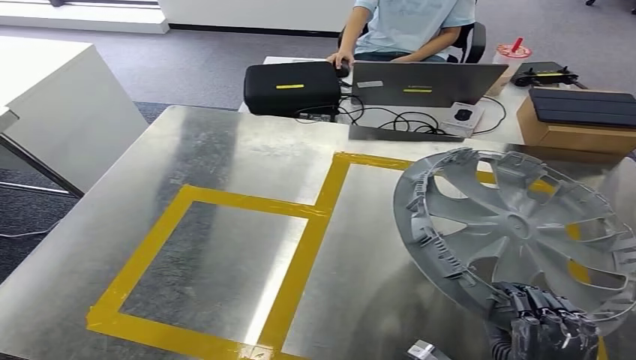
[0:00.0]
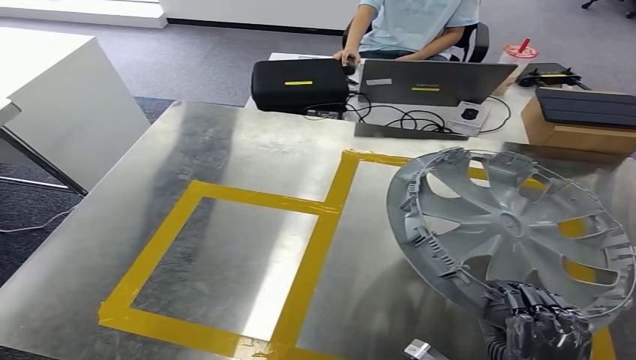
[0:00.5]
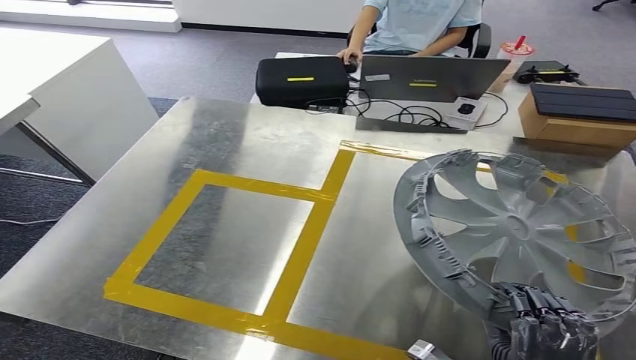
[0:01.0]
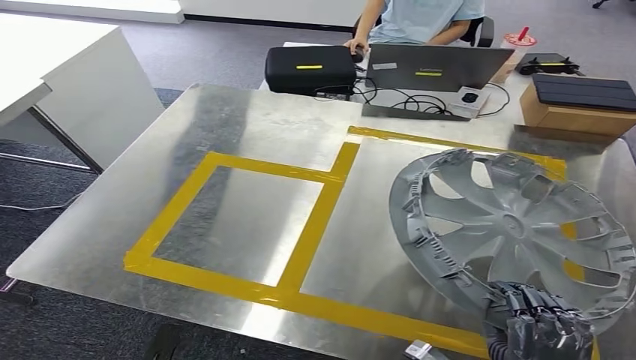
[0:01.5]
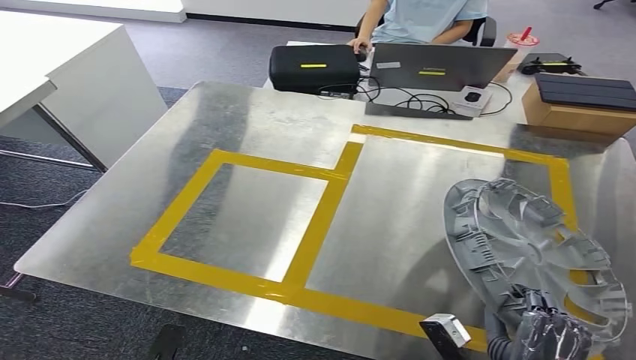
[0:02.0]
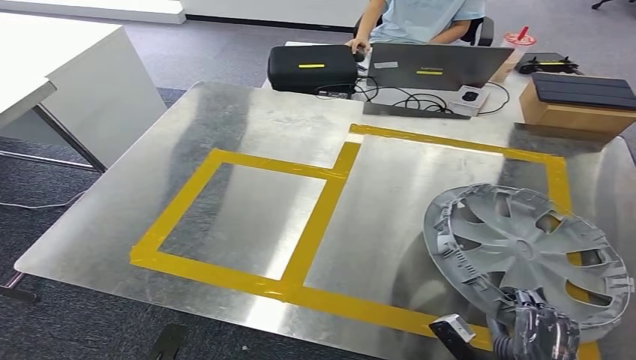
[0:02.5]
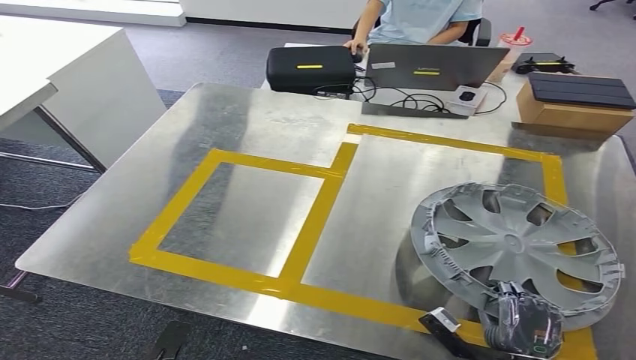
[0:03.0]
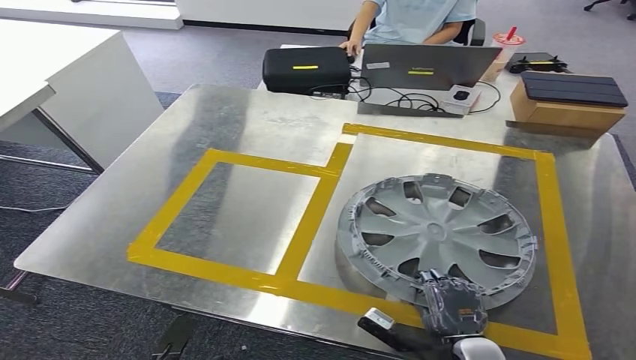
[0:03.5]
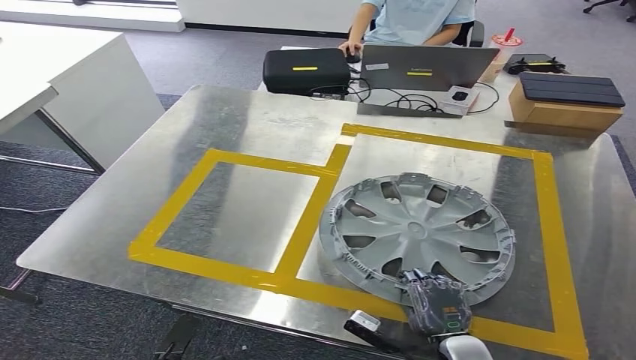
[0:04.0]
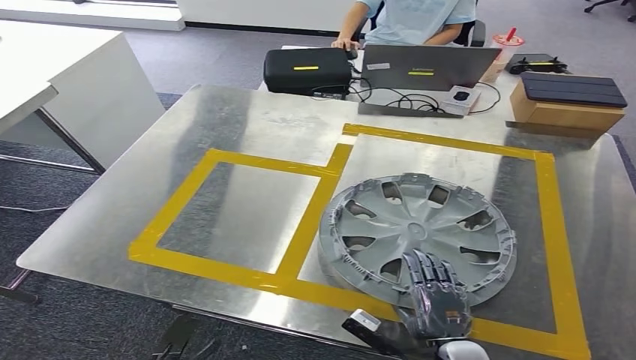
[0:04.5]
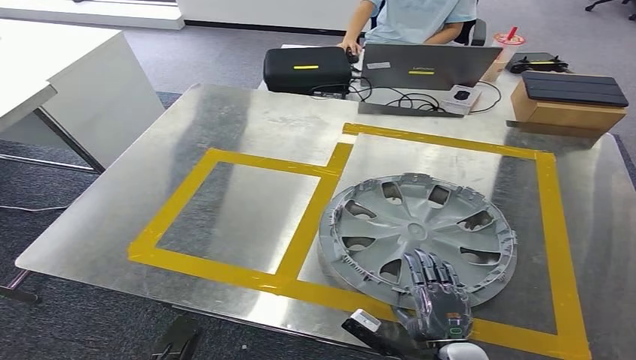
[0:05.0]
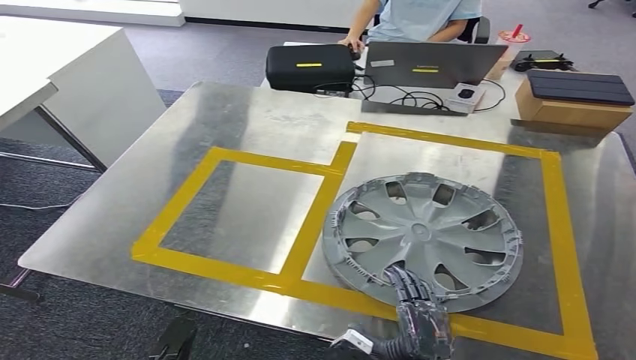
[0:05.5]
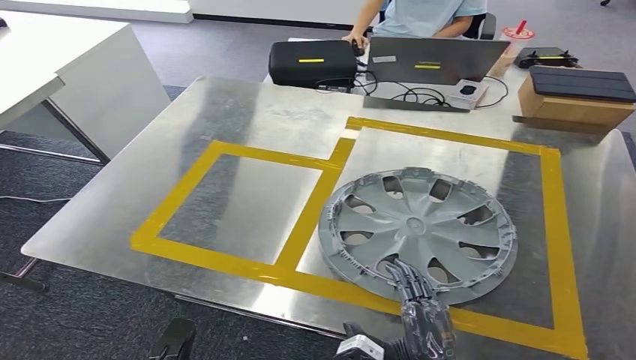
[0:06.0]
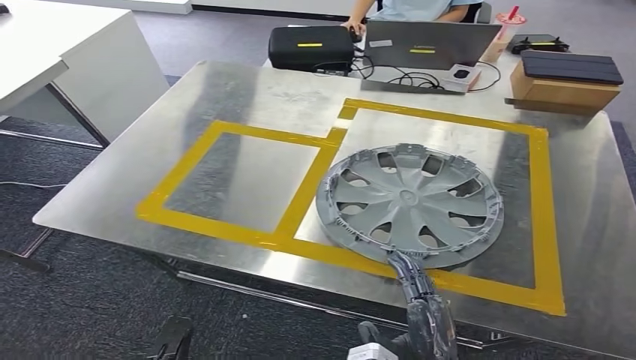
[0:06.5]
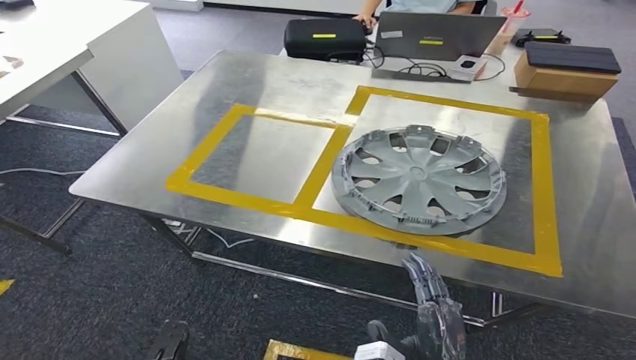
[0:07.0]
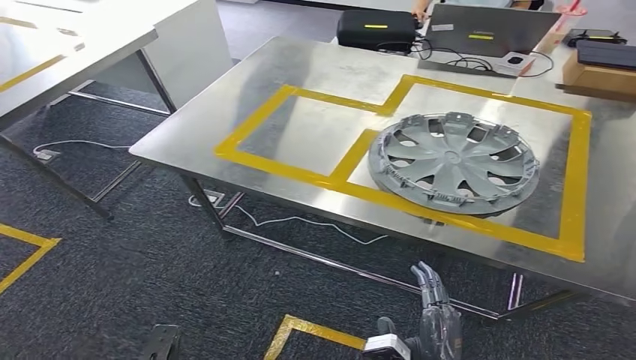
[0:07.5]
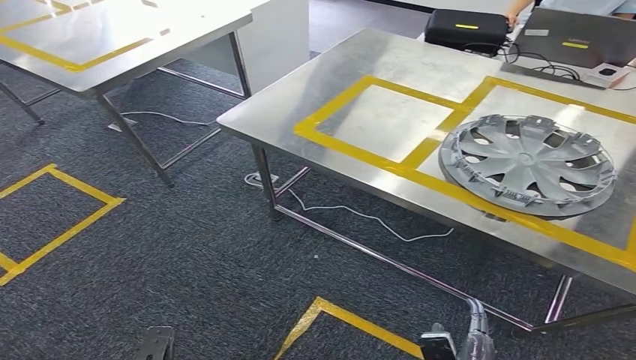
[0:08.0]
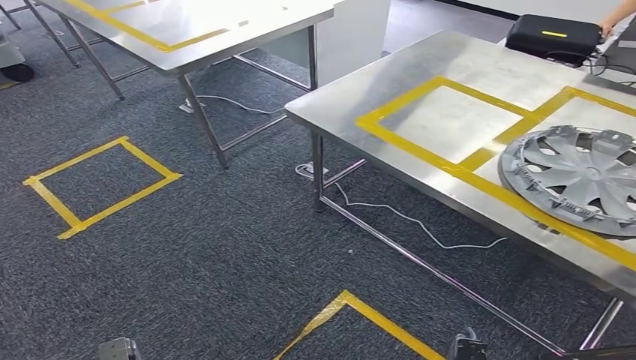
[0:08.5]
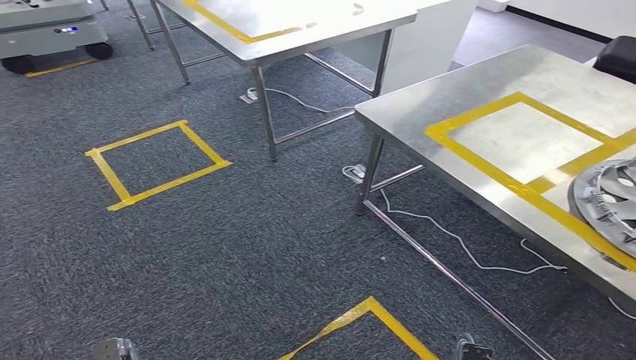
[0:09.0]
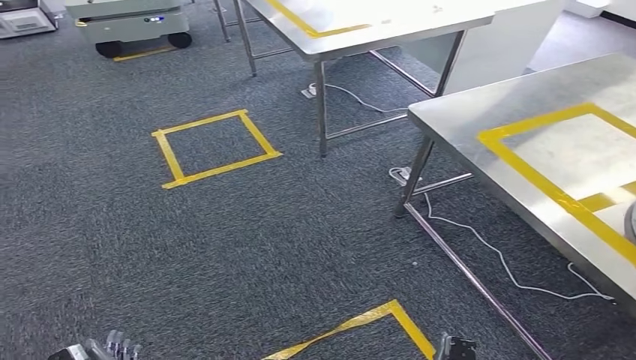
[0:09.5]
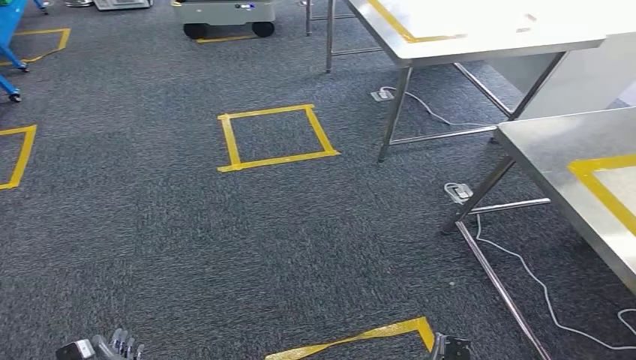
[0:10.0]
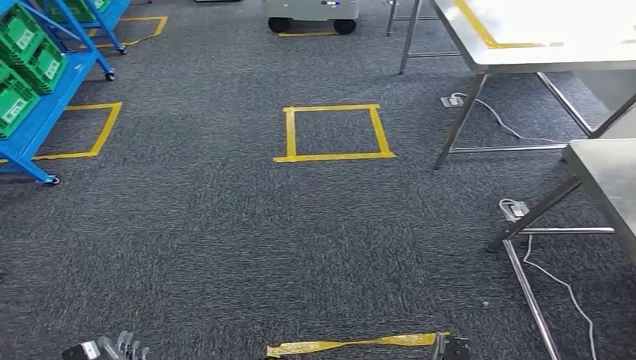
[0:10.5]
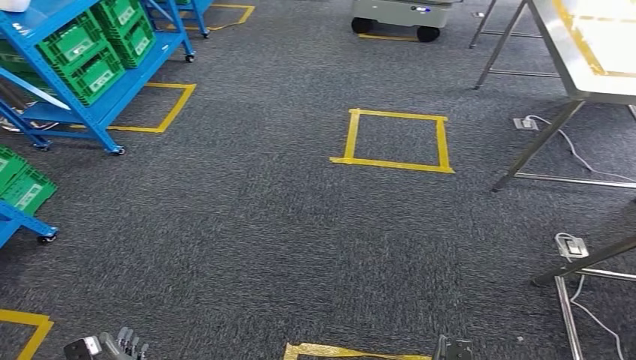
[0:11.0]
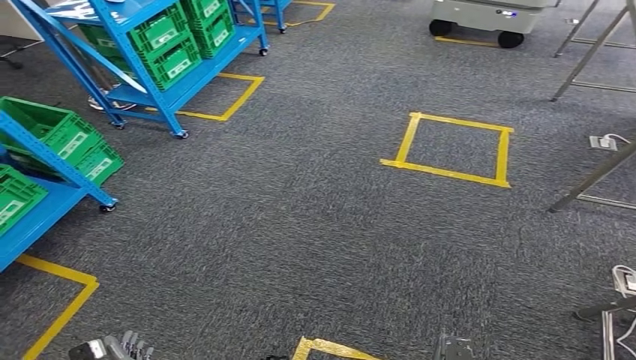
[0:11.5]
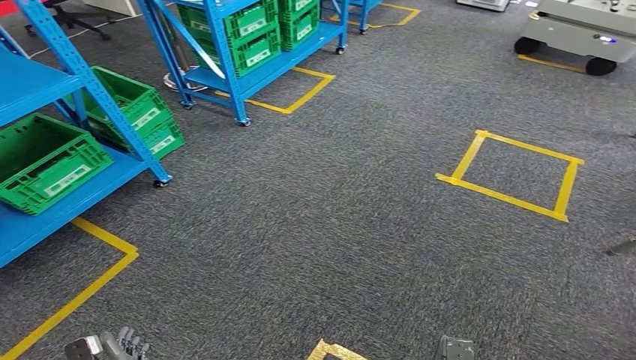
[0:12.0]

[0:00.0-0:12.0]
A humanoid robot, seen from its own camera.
Step, 0:00.0 to 0:04.5: Insert the small component into the corresponding slot on the workbench.

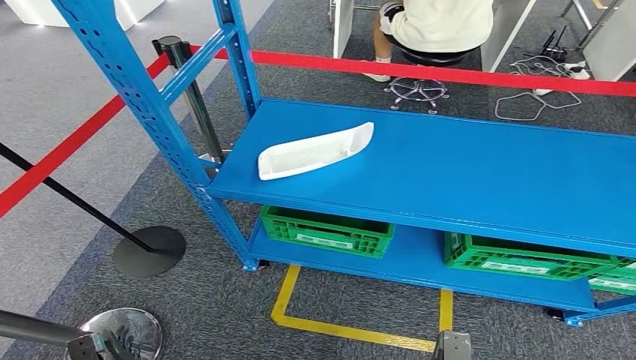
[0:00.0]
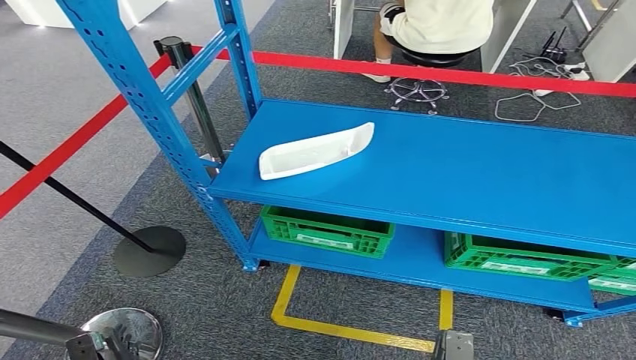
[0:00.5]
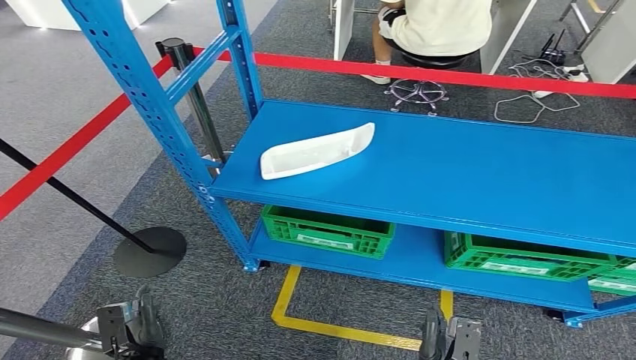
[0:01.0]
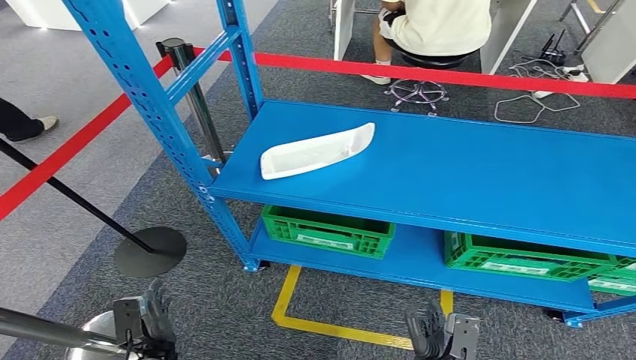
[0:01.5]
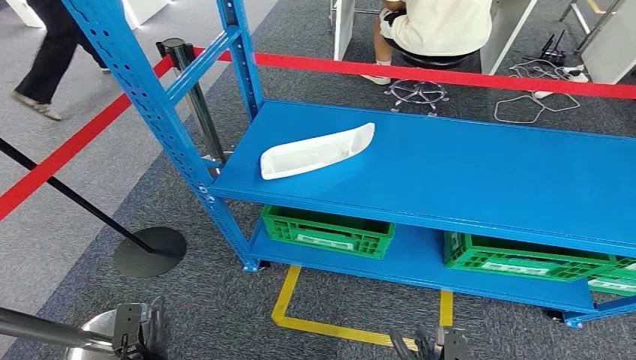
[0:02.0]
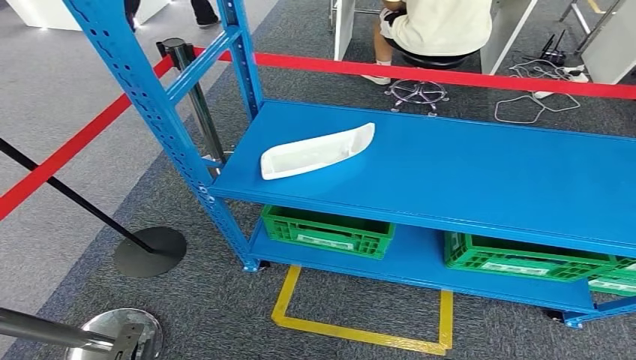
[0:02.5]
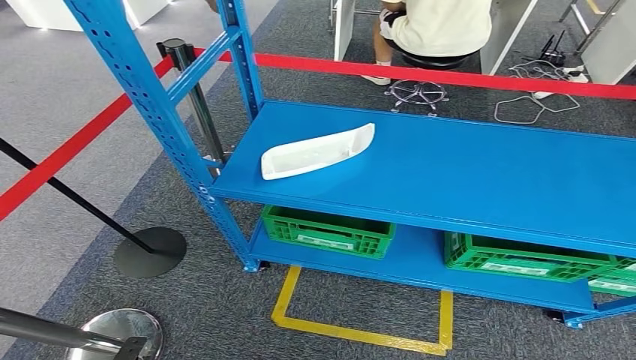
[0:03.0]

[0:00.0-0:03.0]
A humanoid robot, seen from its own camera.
Step, 0:00.0 to 0:03.0: Move to the initial position at the workbench.
0:00.0 to 0:01.5: The left hand heads forward, covering some 5 cm.
0:01.5 to 0:03.0: The right hand heads backward and to the right, covering about 15 cm. The left hand travels backward and to the left by some 15 cm.
